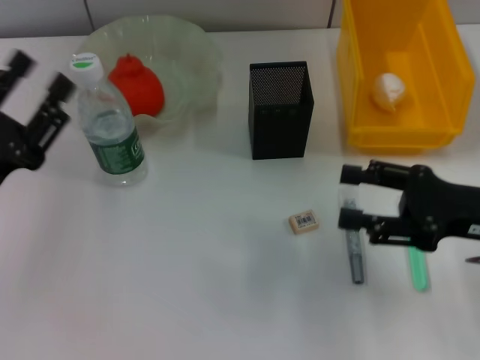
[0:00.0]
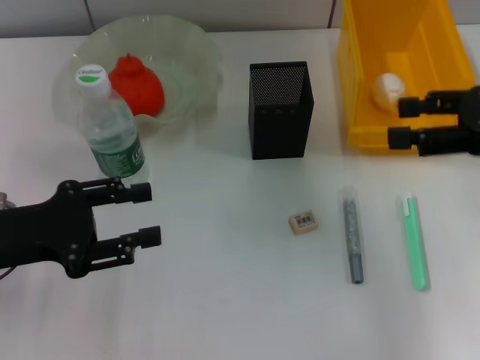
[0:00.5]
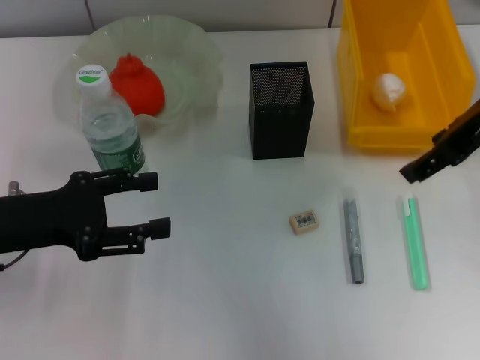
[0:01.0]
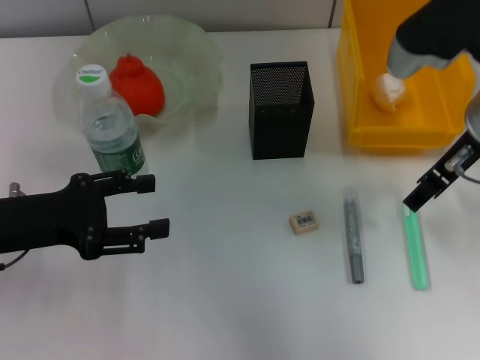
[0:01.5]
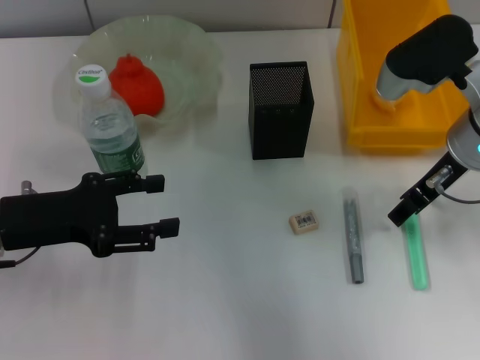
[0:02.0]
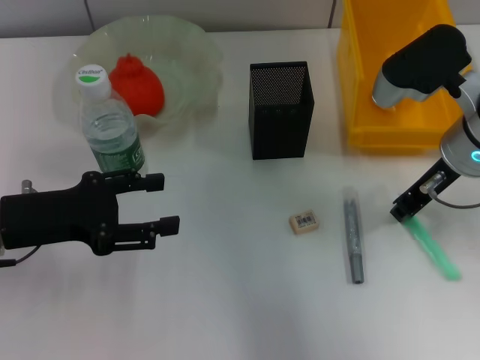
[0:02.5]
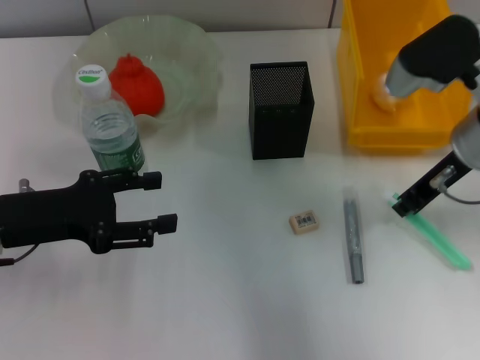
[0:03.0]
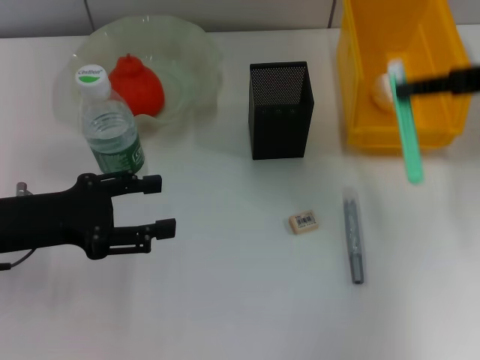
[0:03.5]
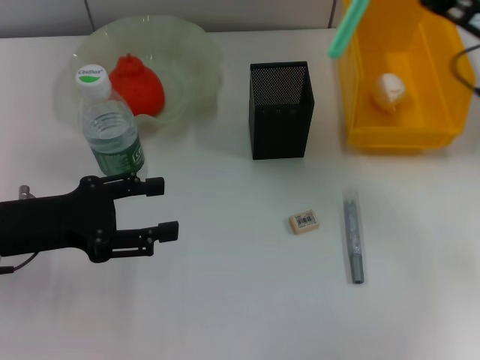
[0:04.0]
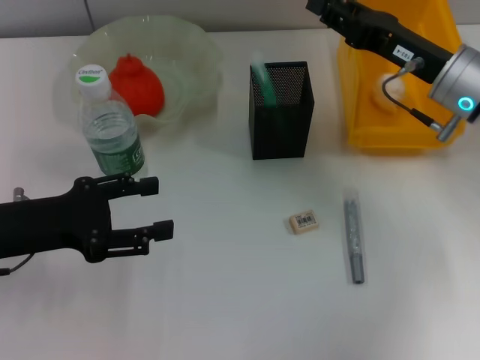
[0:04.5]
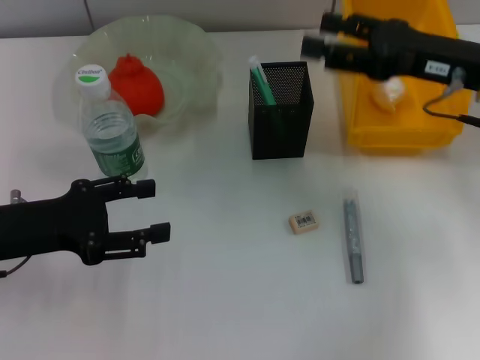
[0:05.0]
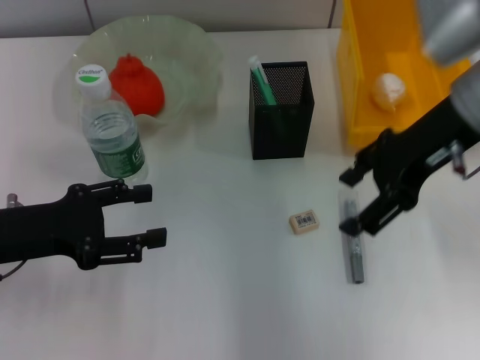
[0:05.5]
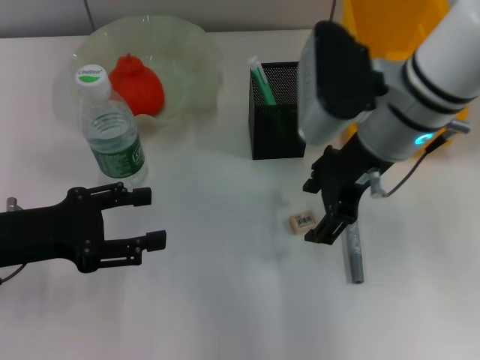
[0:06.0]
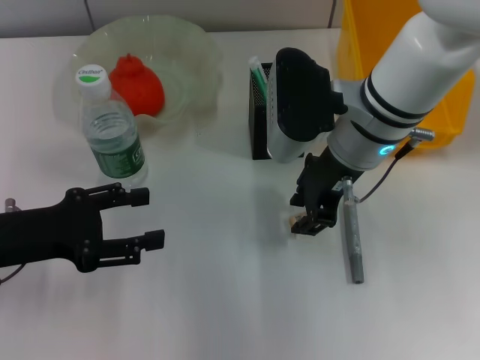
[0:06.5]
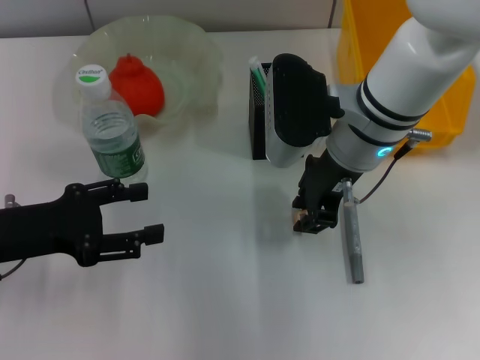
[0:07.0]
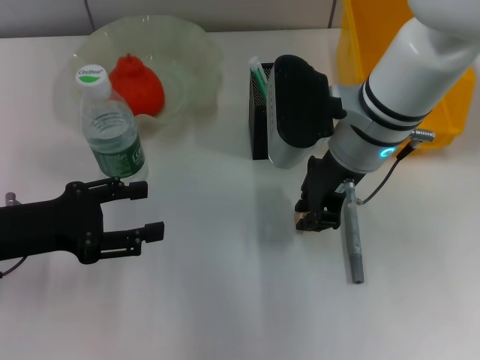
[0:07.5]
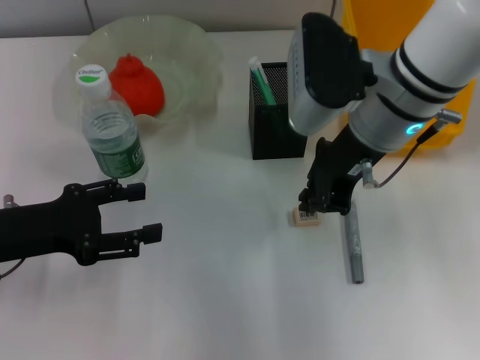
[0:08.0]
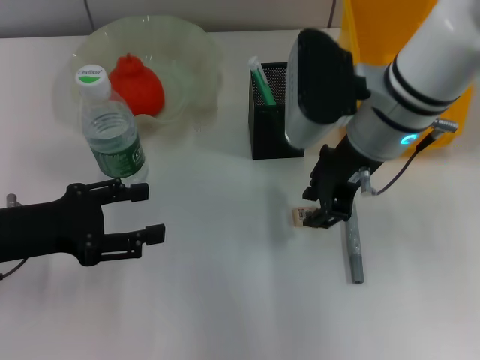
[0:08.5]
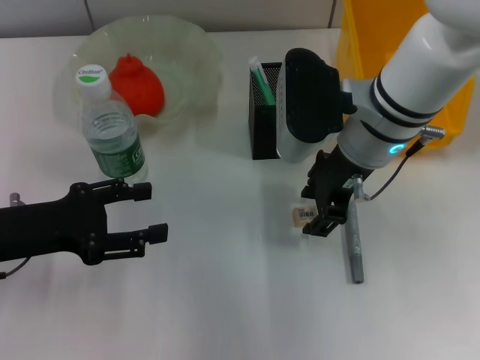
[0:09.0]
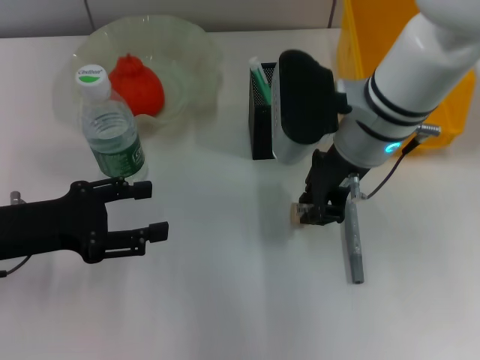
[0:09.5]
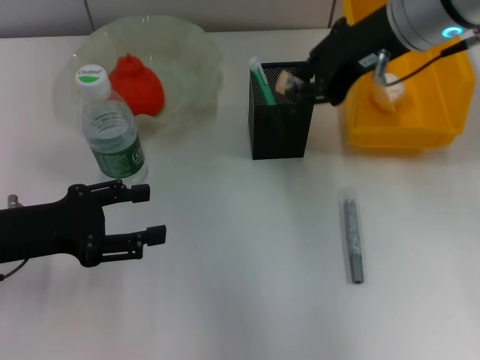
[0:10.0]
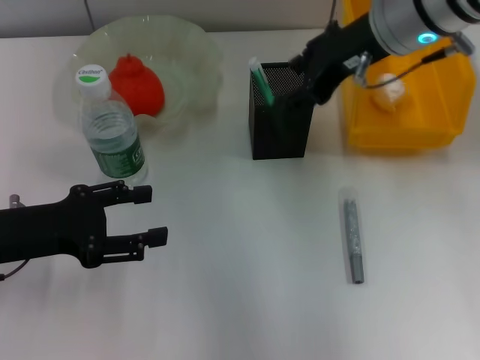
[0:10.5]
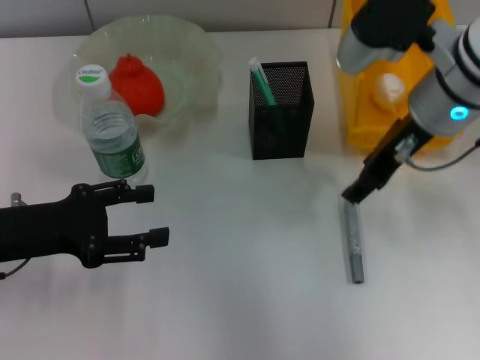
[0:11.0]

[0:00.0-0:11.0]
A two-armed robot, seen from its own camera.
Step, 0:00.5 to 0:02.5: Grab the blue utility knife with the right hand.
Step, 0:03.0 to 0:04.0: Place the blue utility knife into the pen holder with the right hand.
Step, 0:04.5 to 0:09.0: Grab the eraser with the right hand.
Step, 0:09.5 to 0:10.0: Put the eraser into the pen holder with the right hand.
0:00.0 to 0:02.0: The right gripper shifts about 15 cm forward, to the left and upward.
0:02.0 to 0:03.5: The right gripper travels to the right and upward by some 10 cm, and closes up.
0:03.5 to 0:05.5: The right gripper travels to the left by some 10 cm, and opens up.
0:05.5 to 0:07.5: The right gripper is displaced to the left and downward by approximately 10 cm, and closes.
0:07.5 to 0:09.0: The right gripper opens its fingers.
0:09.0 to 0:11.0: The right gripper moves to the right, roughly 5 cm, and closes and opens again.

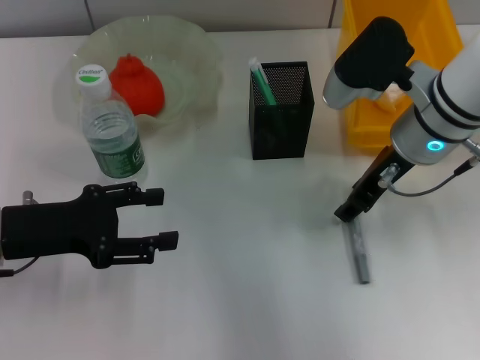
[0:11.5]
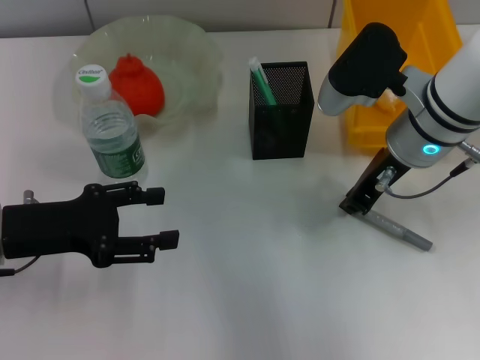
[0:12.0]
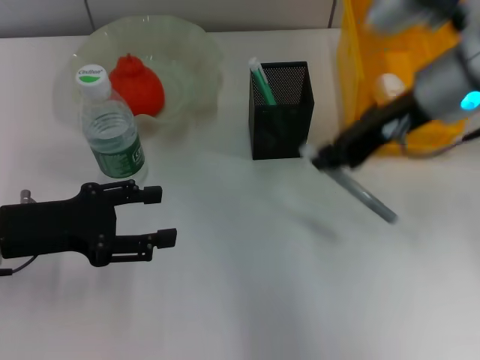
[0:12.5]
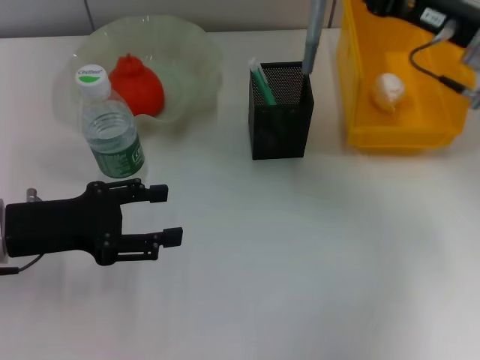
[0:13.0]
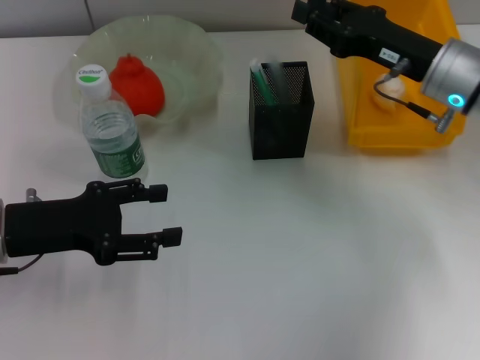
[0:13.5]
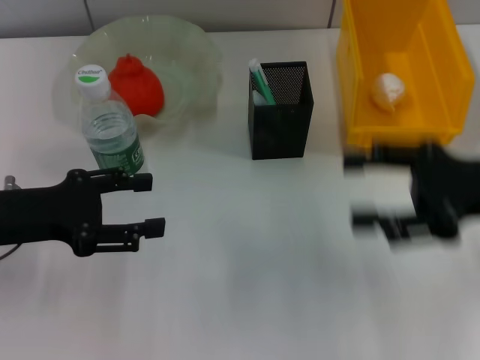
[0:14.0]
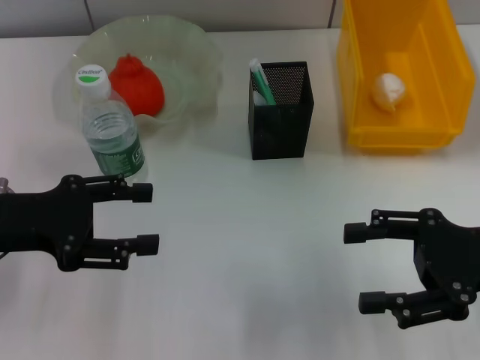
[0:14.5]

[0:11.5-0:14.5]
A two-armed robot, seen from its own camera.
Step, 0:12.5 to 0:13.5: Place the gray glue into the pen holder with the right hand.
0:11.5 to 0:13.0: The right gripper is displaced to the right by some 10 cm, and closes.
0:13.0 to 0:14.5: The right gripper is displaced backward by approximately 15 cm, and opens its fingers.
